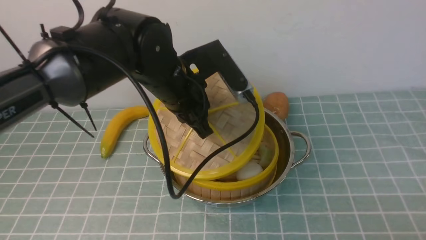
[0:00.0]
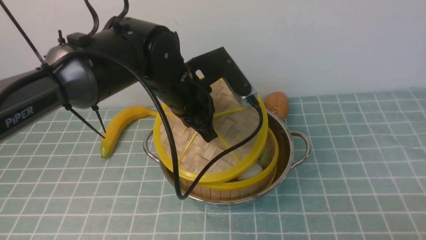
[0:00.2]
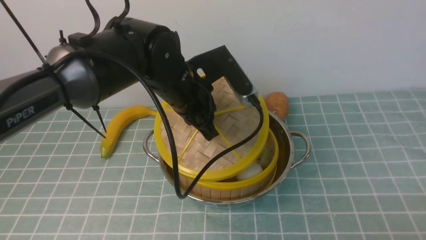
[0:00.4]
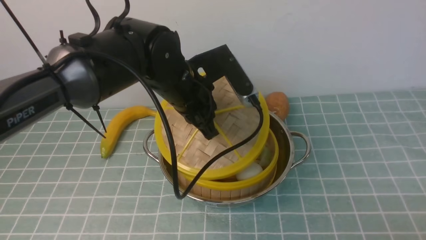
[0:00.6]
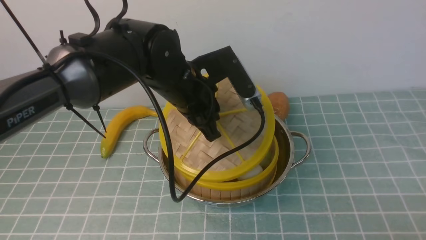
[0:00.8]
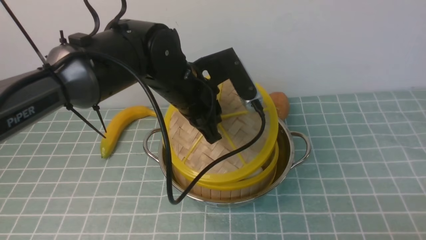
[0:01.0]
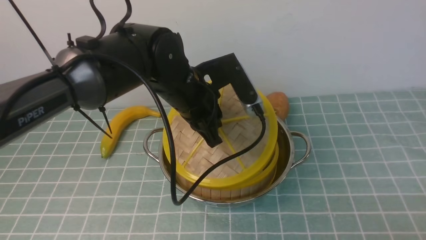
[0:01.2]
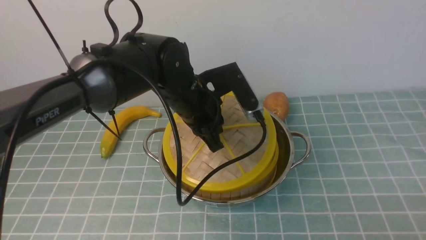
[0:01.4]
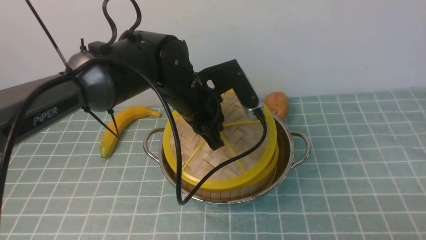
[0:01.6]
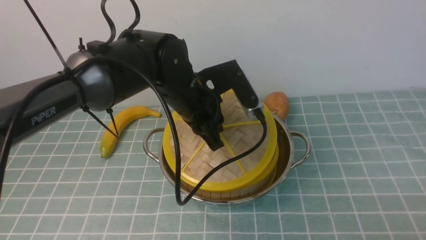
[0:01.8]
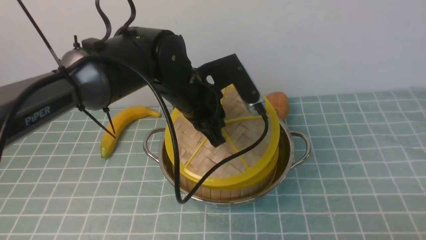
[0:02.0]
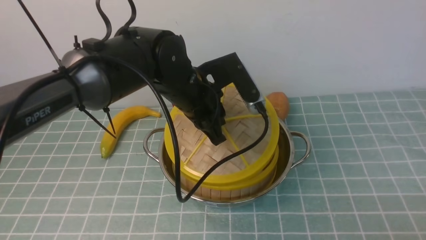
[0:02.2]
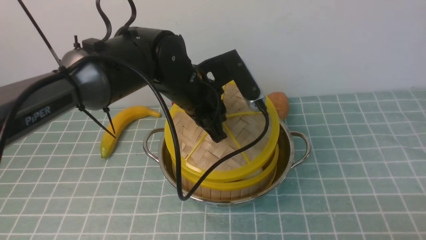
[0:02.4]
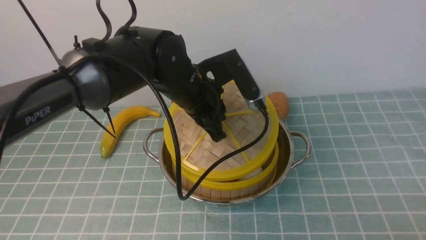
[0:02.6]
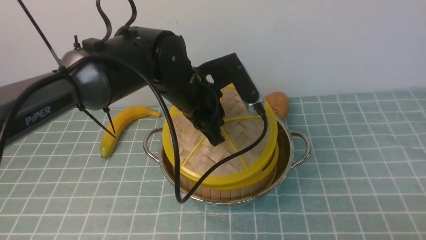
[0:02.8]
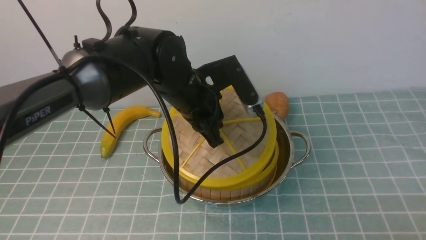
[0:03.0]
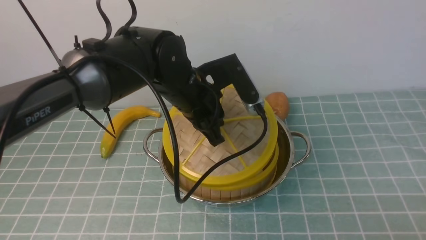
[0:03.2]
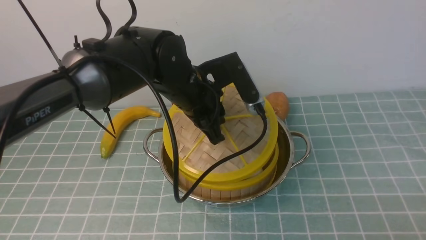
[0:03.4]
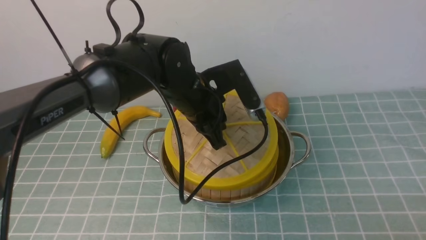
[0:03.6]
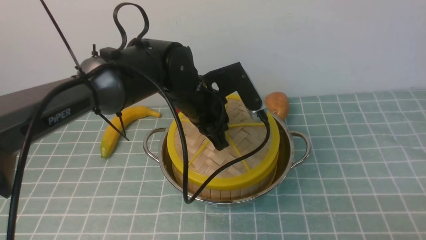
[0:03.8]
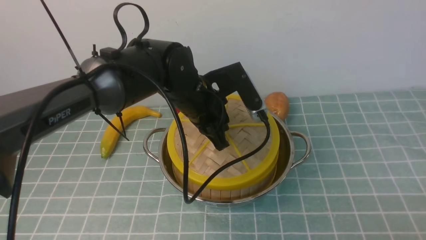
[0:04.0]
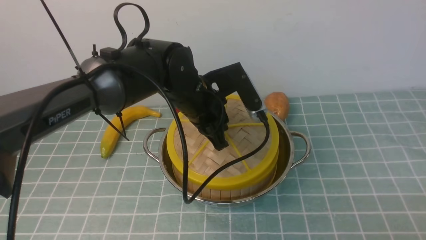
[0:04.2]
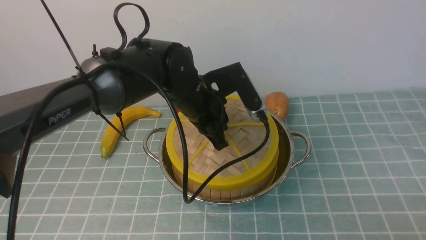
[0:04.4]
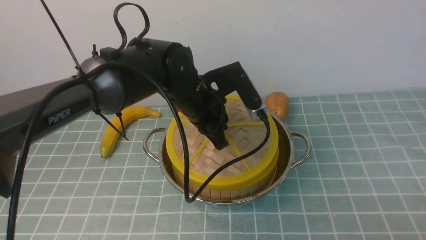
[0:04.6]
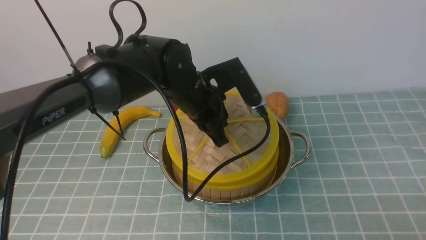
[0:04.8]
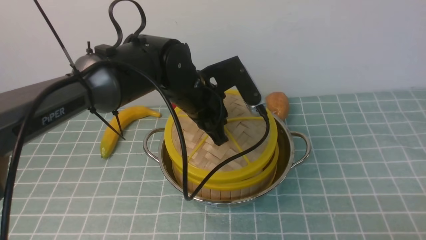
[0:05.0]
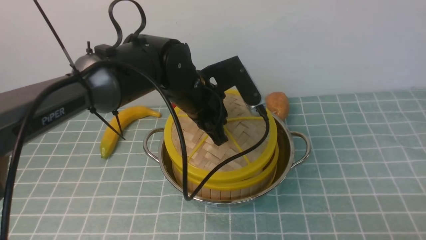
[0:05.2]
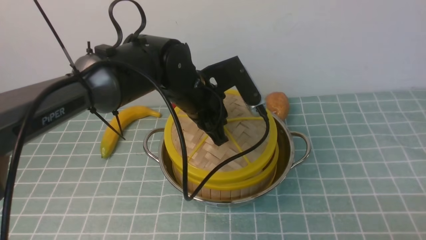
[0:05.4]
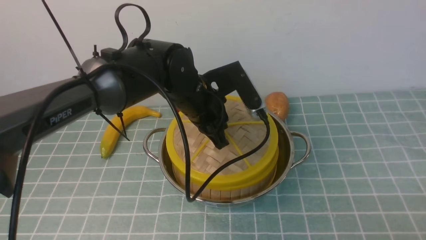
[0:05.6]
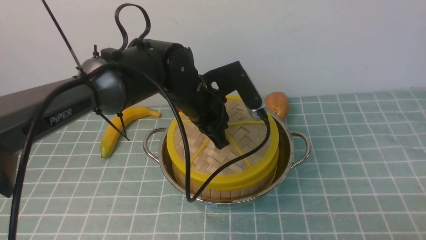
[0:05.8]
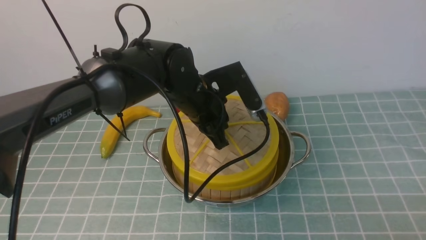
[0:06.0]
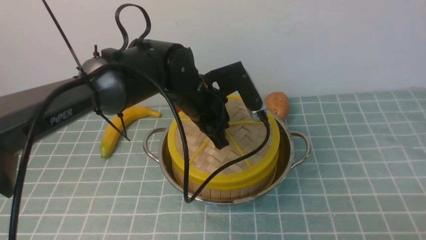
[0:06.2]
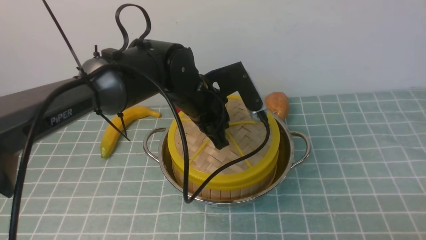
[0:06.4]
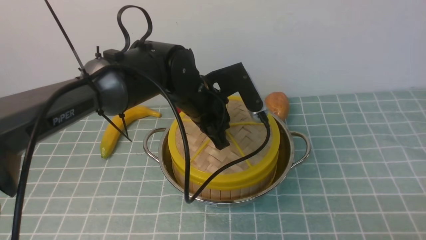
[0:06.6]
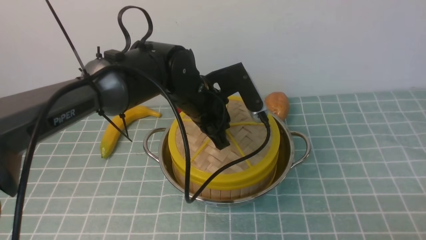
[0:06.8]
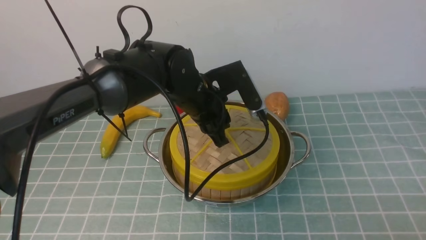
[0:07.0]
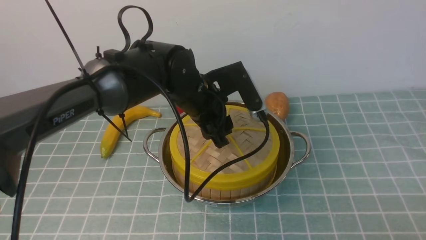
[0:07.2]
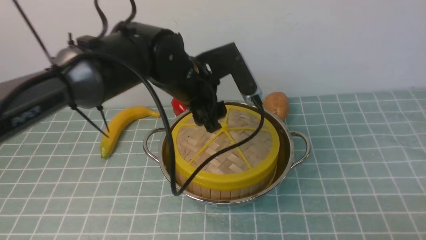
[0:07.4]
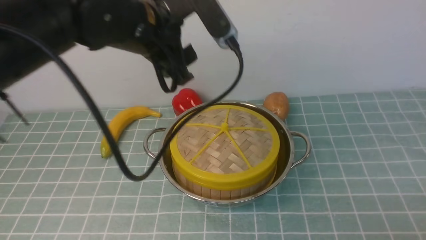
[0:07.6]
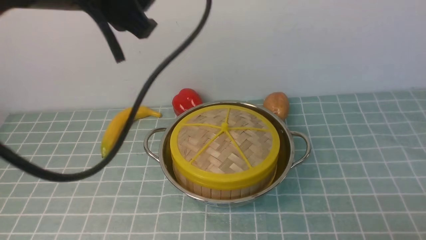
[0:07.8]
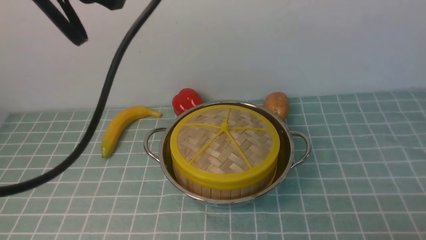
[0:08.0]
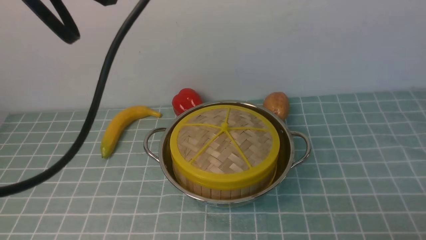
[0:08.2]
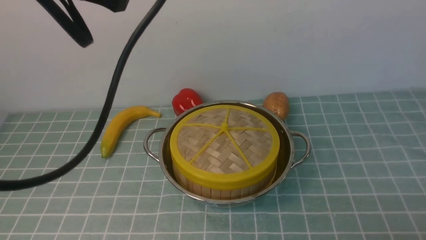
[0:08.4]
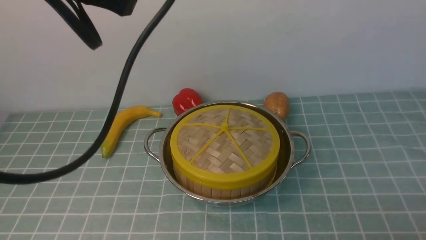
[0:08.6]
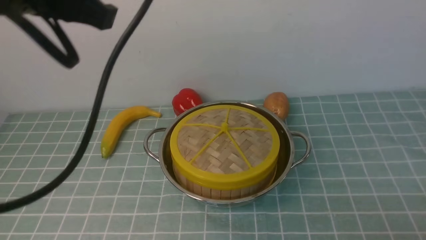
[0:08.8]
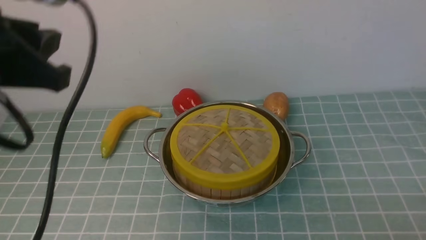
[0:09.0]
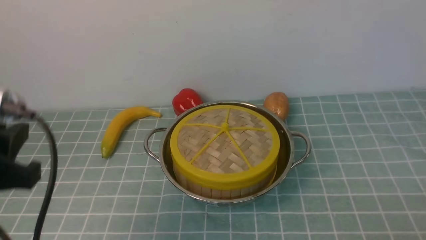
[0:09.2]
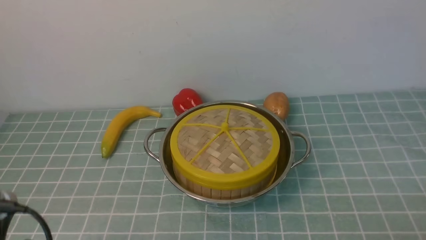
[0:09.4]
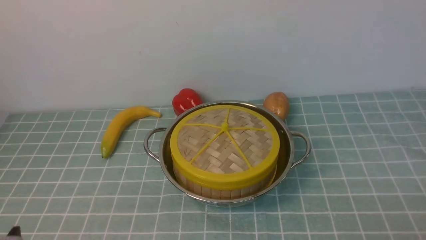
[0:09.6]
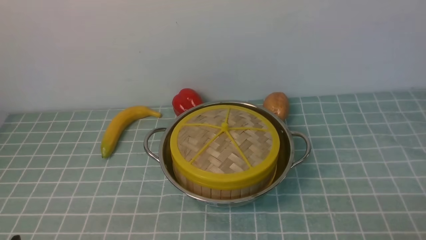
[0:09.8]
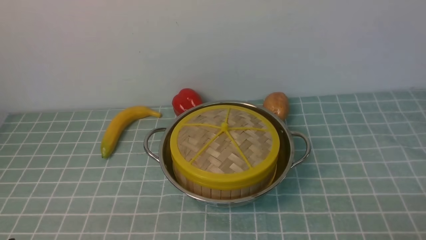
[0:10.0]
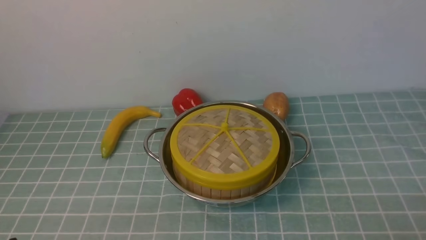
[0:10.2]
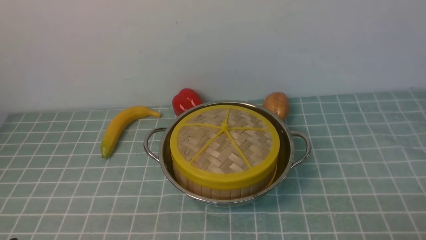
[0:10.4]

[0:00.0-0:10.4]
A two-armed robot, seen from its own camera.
Task of the whole recording: place the steamer in the pot on the blue tablecloth, and put the lid on the steamer.
Step, 0:00.0 to 0:08.0: use the left arm to place the steamer lid on the steamer.
0:00.0 to 0:01.4: There are only small adjustments of the grippers.
0:01.4 to 0:03.0: Both grippers stay put.
0:03.0 to 0:04.4: The grippers move only a little.
0:04.4 to 0:06.0: The two grippers keep their place.
0:06.0 to 0:07.4: The left gripper travels upward by approximately 5 cm, and opens.
0:07.4 to 0:09.0: The left gripper is displaced backward, to the left and upward by approximately 25 cm, and closes up.
0:09.0 to 0:10.4: The left gripper is displaced downward and backward by roughly 25 cm.

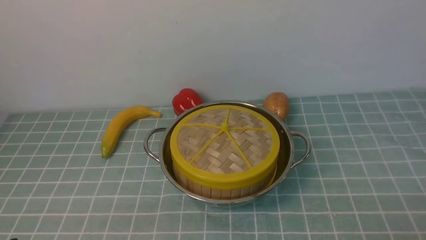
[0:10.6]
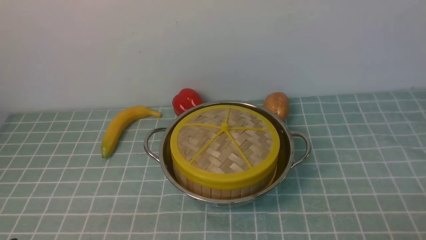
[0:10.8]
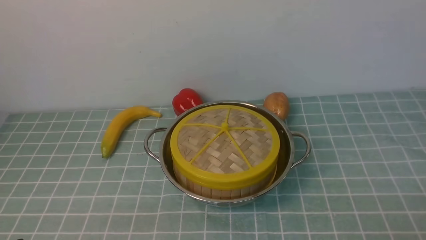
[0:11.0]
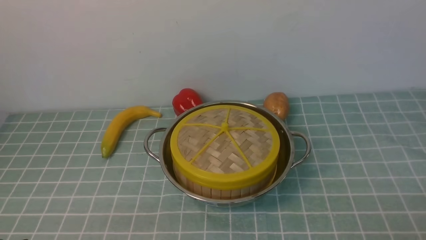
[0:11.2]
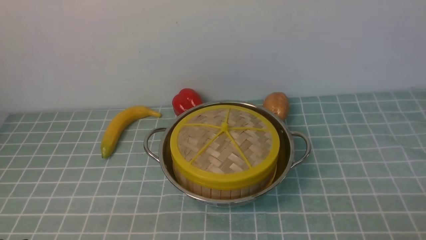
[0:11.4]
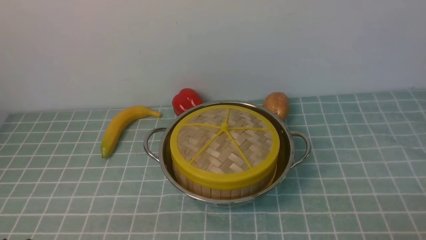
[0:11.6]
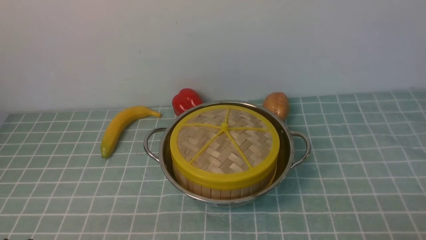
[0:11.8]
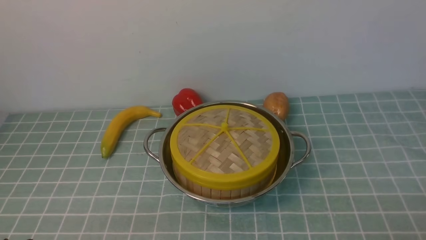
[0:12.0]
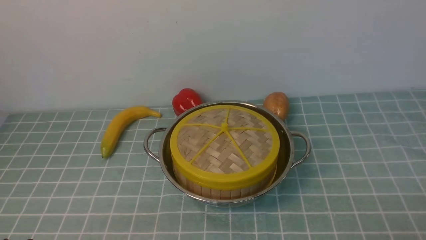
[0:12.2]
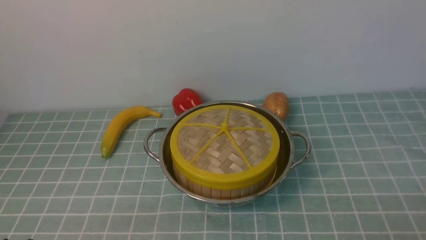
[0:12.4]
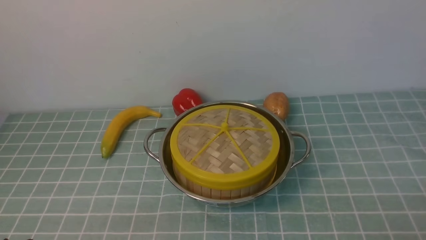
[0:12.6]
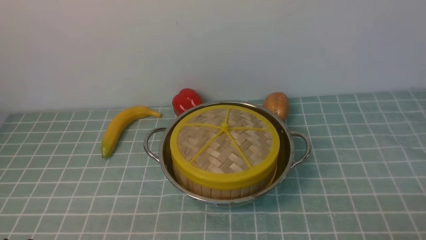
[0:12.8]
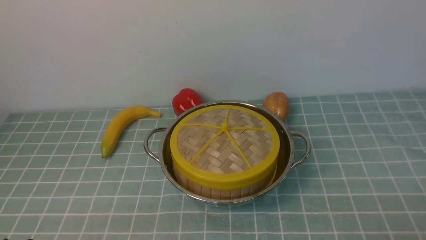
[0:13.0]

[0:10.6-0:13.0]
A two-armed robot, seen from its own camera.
Task of the whole recording: place the steamer in the pot on the blue tablecloth, and put the lid on the steamer.
0:11.8 to 0:13.0: Both grippers stay put.

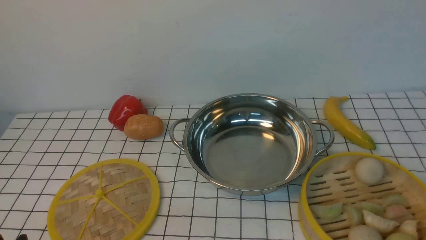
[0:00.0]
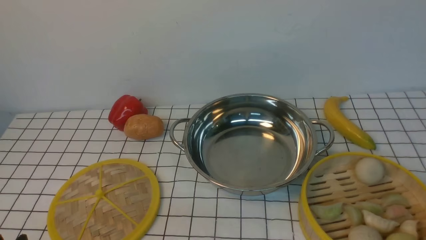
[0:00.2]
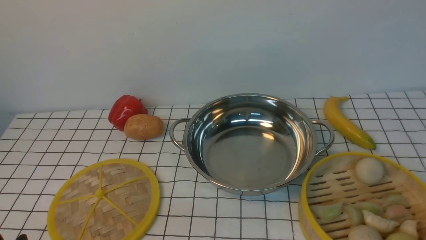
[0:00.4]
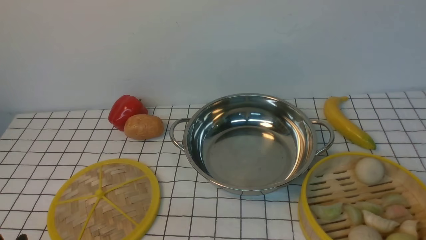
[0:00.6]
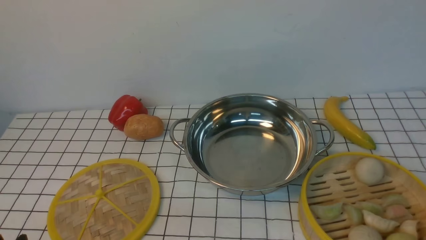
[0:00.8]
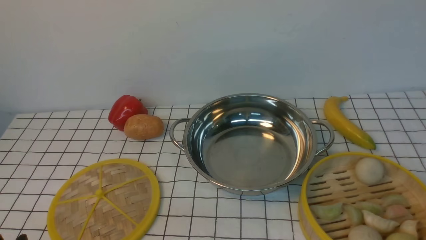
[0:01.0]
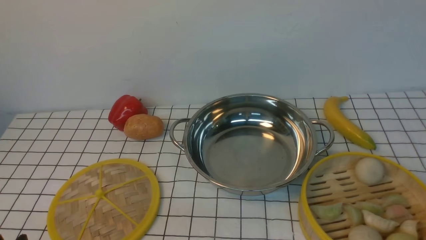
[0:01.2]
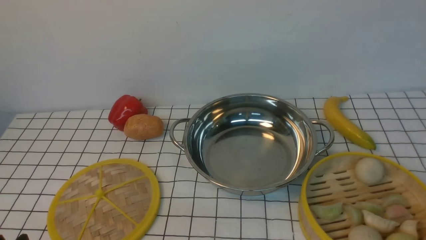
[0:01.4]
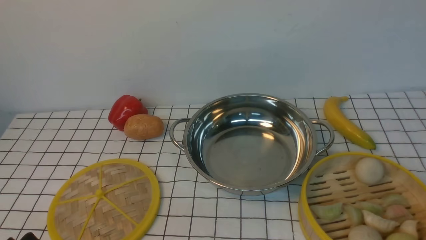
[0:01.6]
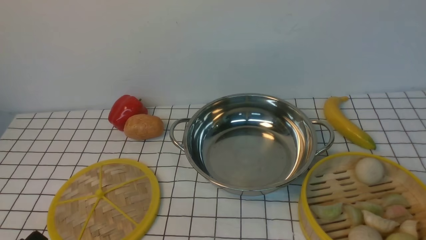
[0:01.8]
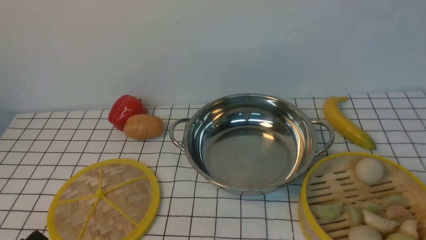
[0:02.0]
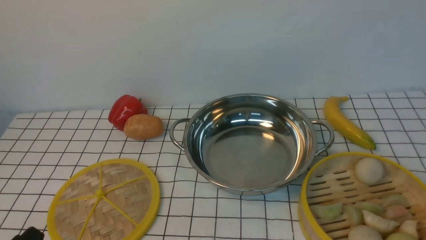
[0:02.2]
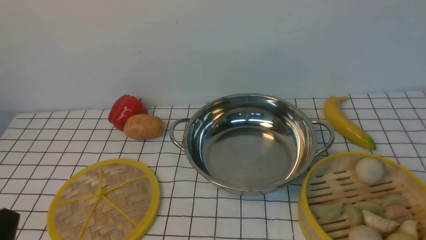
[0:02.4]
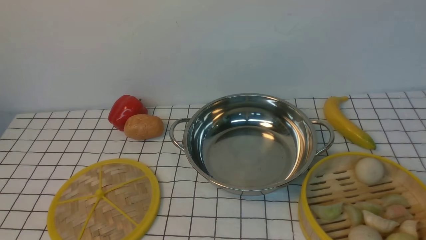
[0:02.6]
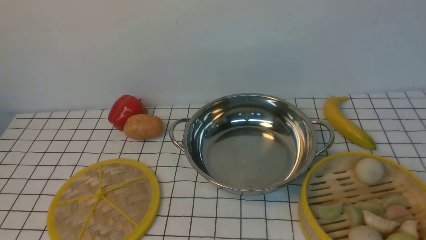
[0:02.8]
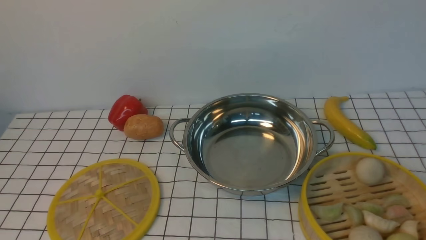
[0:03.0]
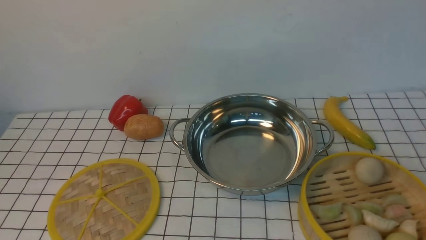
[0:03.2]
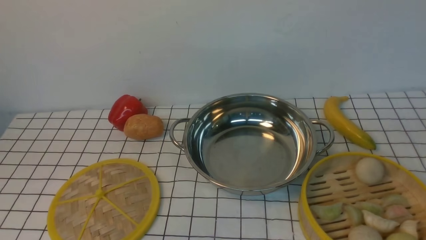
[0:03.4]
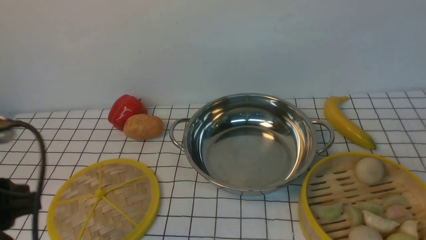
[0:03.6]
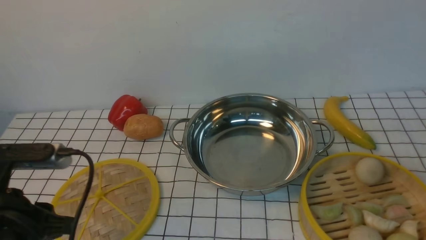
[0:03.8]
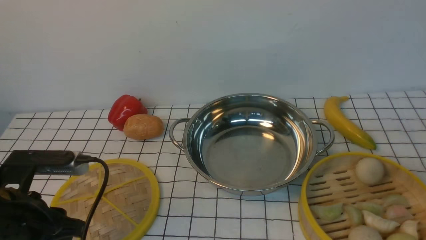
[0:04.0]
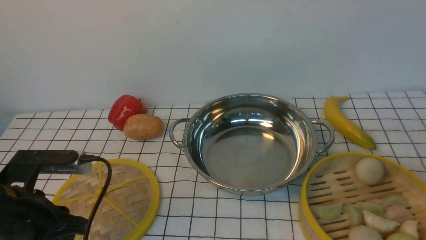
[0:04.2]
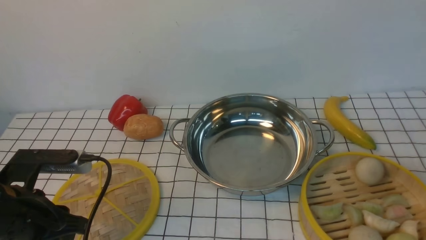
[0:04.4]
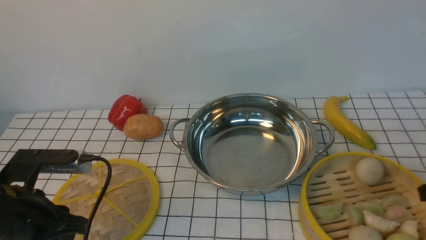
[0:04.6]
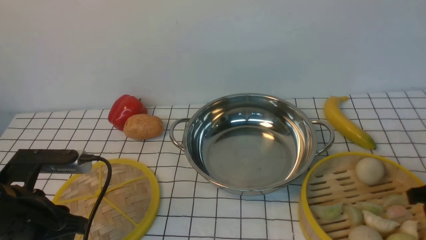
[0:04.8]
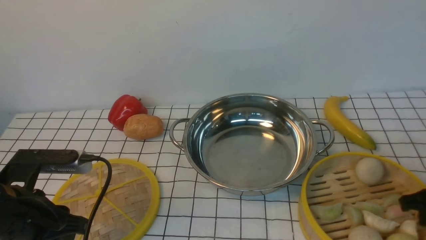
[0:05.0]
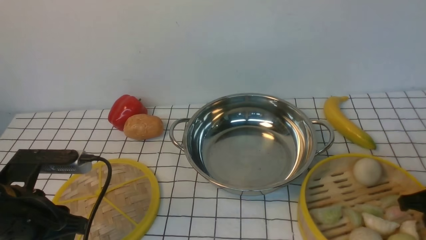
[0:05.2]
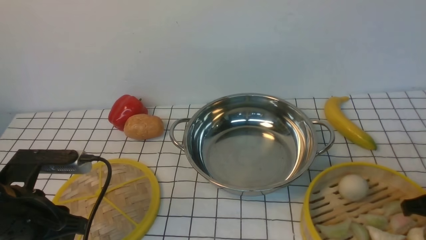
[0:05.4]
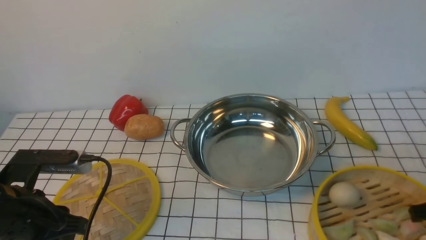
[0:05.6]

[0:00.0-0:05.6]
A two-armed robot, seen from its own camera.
Task of the whole recording: place the steamer in the pot on the white tablecloth, and put the lid on the steamer.
0:02.8 to 0:04.2: The left gripper is displaced forward by roughly 15 cm.
0:04.2 to 0:05.6: The right gripper goes about 10 cm downward, and closes.
